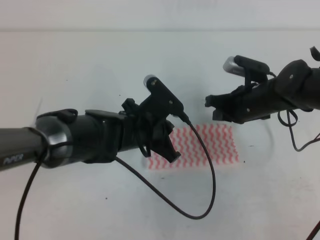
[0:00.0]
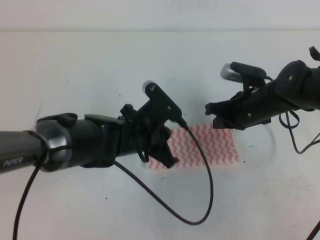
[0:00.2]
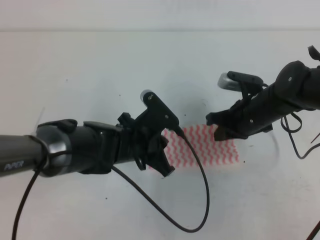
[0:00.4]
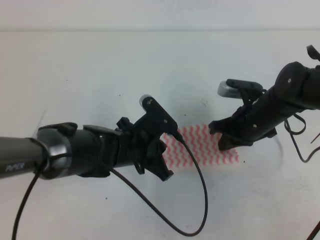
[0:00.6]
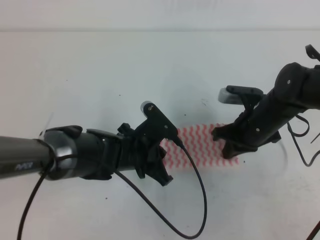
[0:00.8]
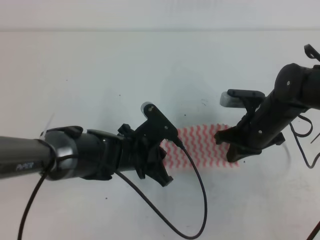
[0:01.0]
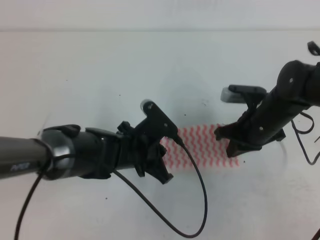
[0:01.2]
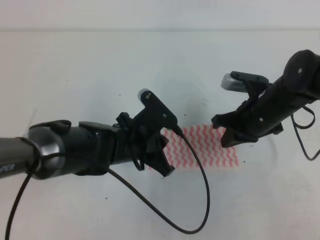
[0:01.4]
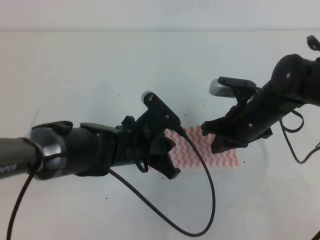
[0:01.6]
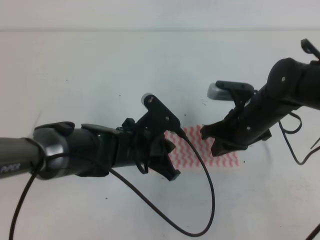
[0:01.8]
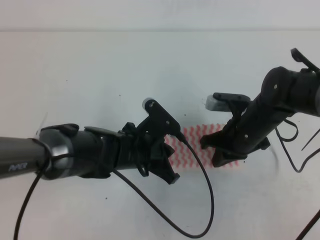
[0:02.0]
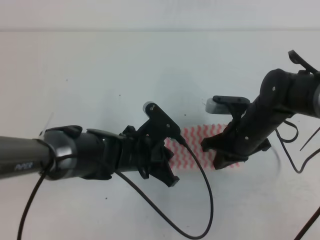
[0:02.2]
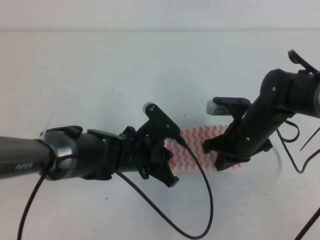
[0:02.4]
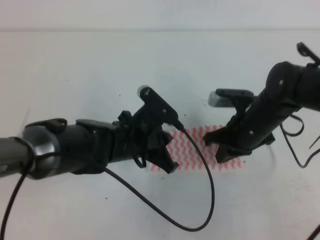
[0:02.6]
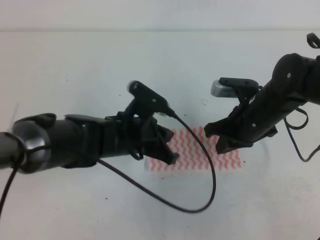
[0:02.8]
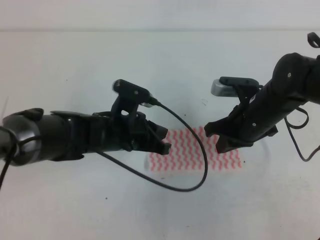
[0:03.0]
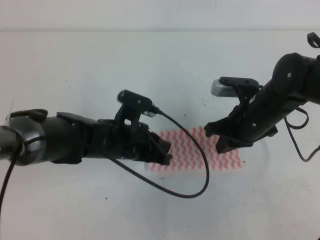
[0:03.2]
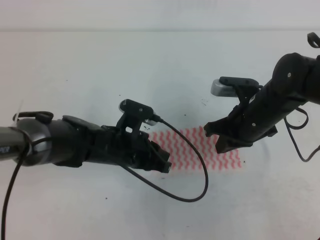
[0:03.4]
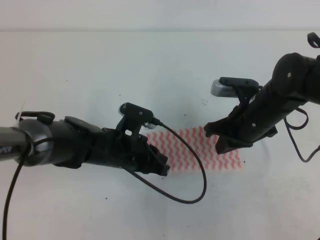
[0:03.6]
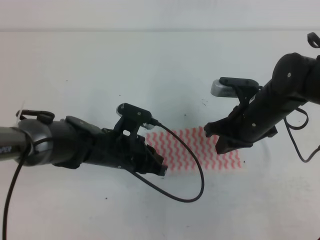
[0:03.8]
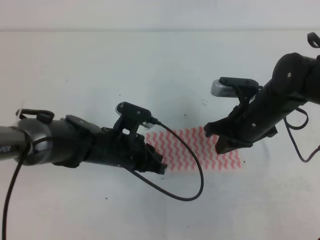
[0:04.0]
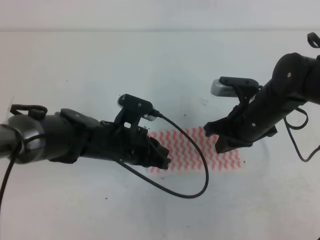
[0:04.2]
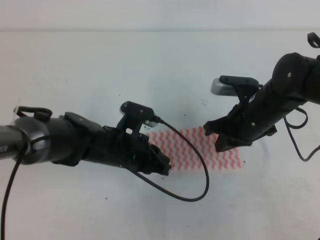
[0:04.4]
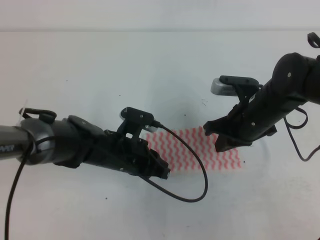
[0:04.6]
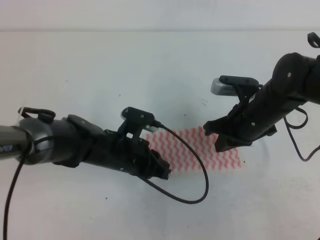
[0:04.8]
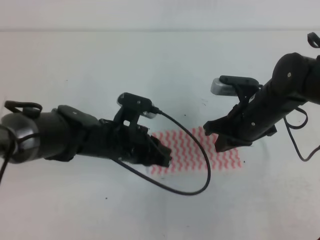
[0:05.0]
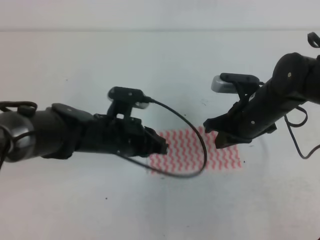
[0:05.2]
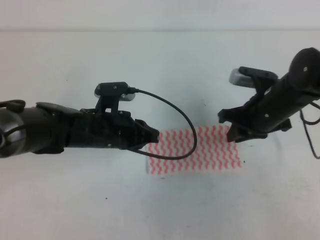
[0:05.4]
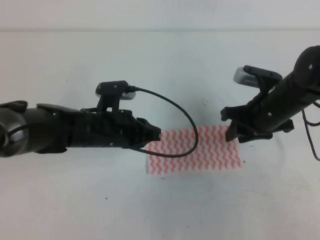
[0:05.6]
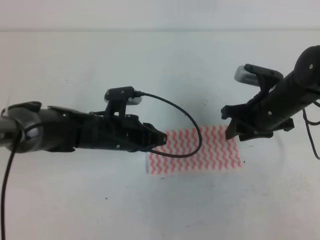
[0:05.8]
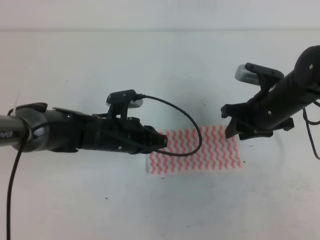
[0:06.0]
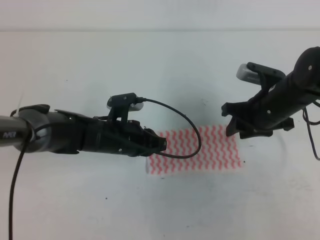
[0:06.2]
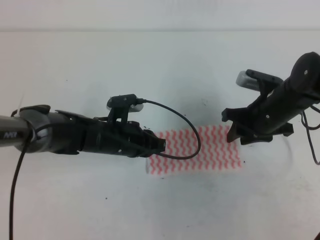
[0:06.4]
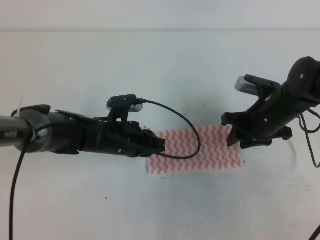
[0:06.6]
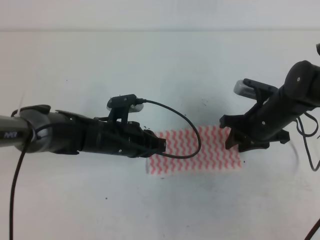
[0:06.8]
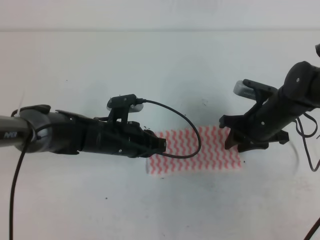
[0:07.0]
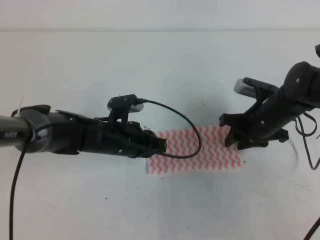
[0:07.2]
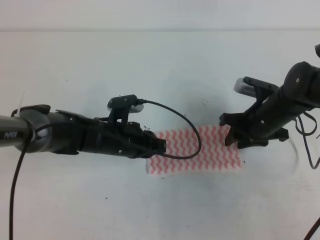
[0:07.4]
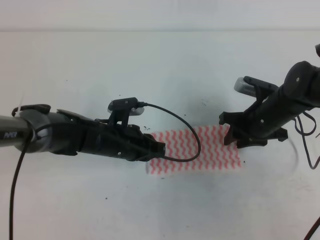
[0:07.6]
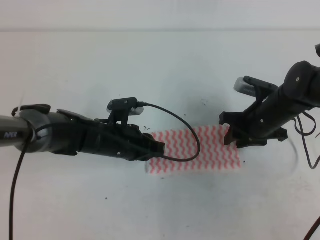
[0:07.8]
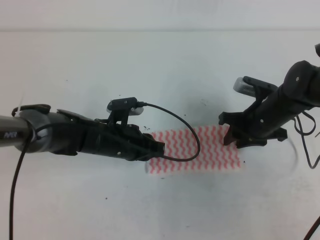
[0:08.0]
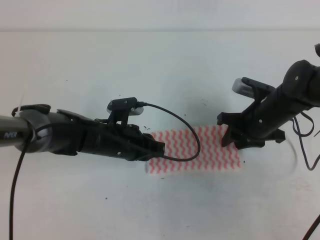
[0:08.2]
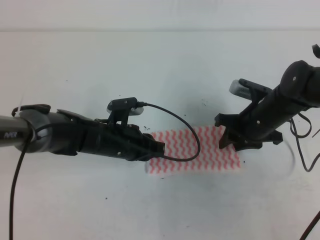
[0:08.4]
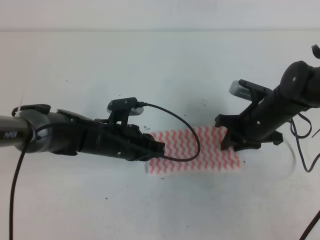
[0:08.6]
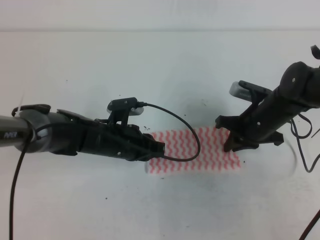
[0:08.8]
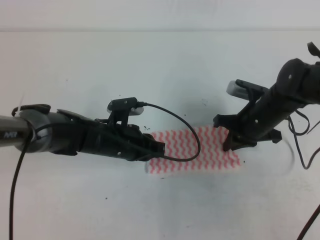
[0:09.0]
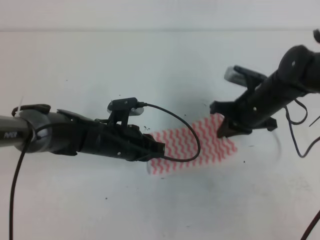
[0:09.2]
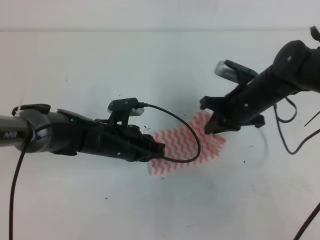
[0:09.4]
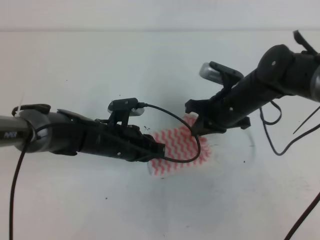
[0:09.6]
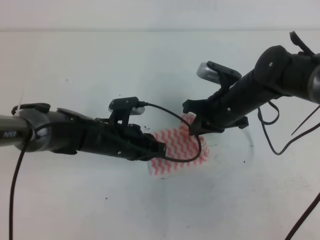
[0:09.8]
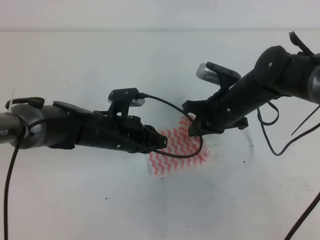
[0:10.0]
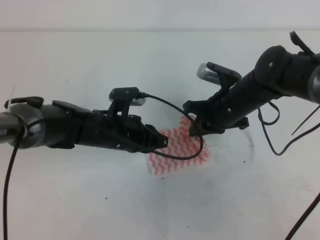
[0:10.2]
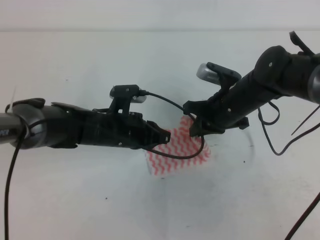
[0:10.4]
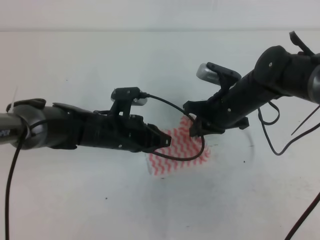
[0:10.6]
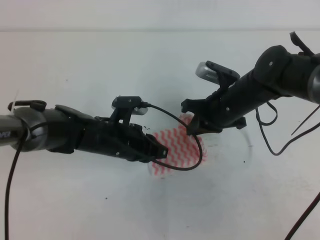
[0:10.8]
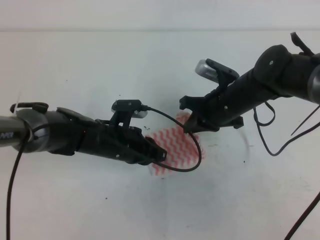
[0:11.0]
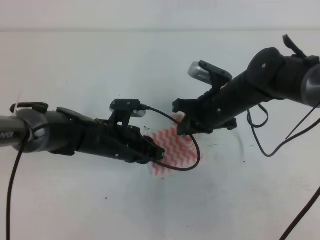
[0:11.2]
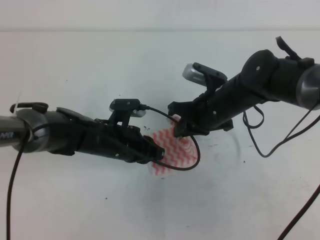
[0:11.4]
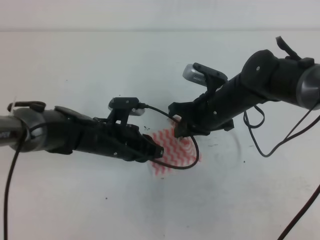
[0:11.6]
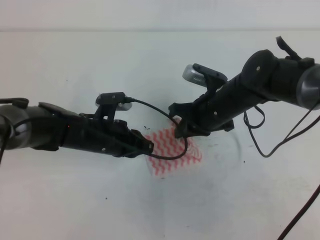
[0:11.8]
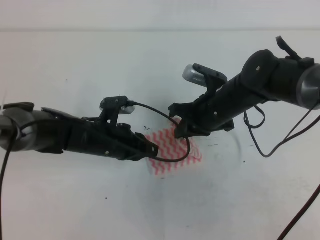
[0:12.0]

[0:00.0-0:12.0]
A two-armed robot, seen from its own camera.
Step, 0:00.8 to 0:05.6: Tidy up the towels.
0:01.6 to 0:03.0: The grippers stay close to where they were, moving slightly.
0:03.0 to 0:04.4: The grippers stay close to where they were, moving slightly.
0:04.4 to 0:06.0: The right gripper opens up.
0:06.0 to 0:07.6: The grippers make only small movements.
0:07.6 to 0:09.0: The right gripper closes up.
0:09.0 to 0:10.4: The right gripper goes about 5 cm to the left.
0:10.4 to 0:12.0: The grippers move only a little.

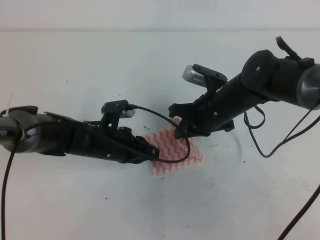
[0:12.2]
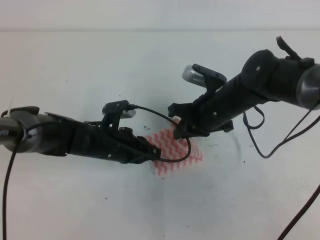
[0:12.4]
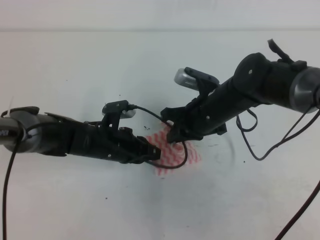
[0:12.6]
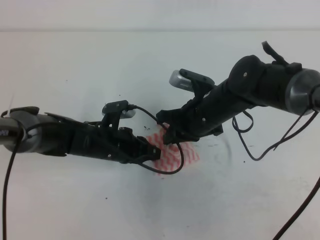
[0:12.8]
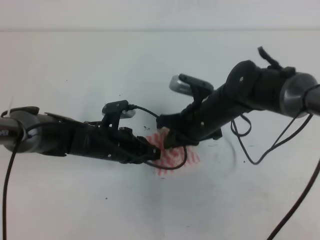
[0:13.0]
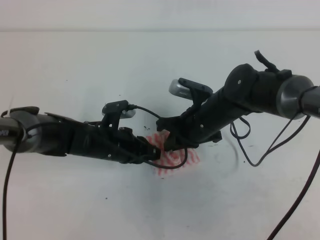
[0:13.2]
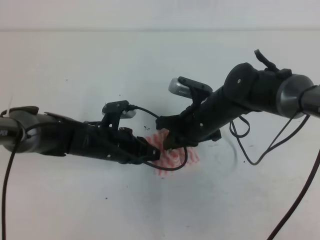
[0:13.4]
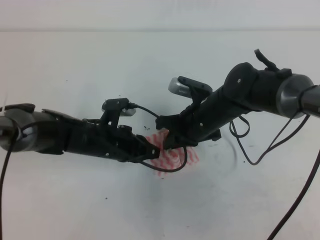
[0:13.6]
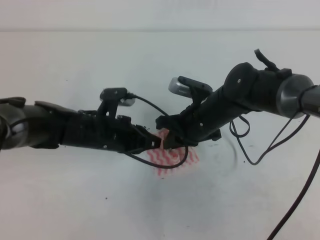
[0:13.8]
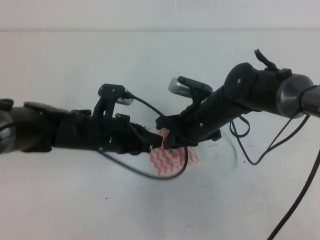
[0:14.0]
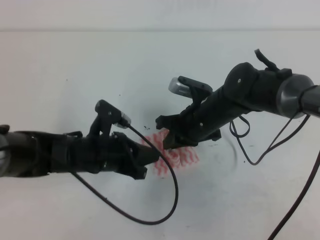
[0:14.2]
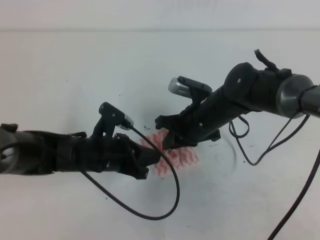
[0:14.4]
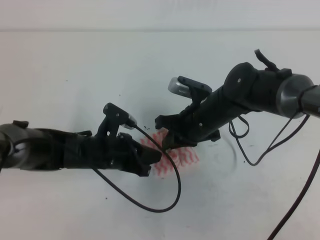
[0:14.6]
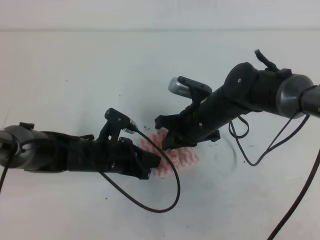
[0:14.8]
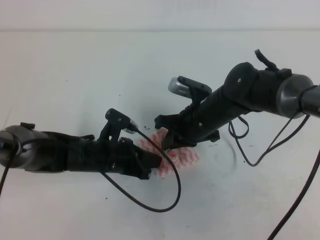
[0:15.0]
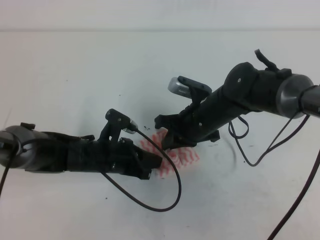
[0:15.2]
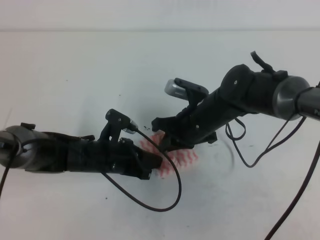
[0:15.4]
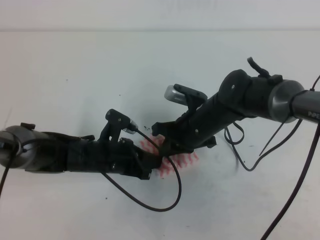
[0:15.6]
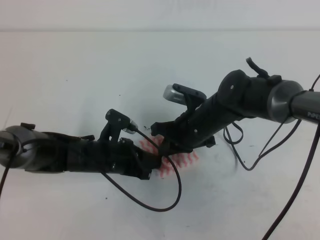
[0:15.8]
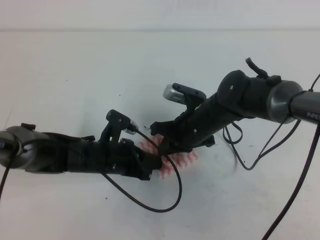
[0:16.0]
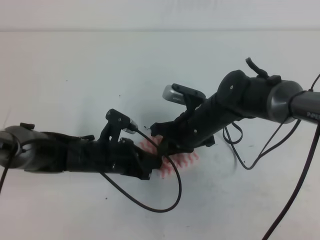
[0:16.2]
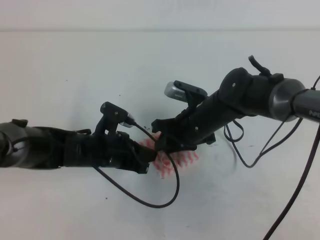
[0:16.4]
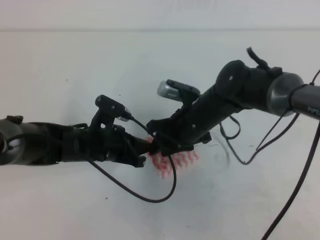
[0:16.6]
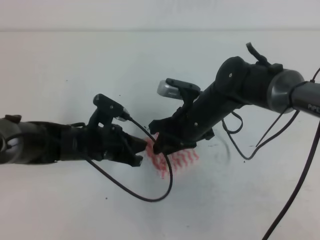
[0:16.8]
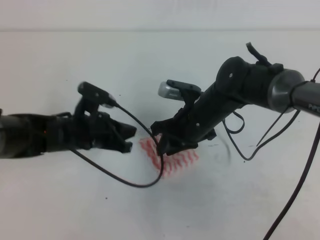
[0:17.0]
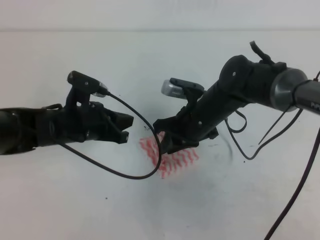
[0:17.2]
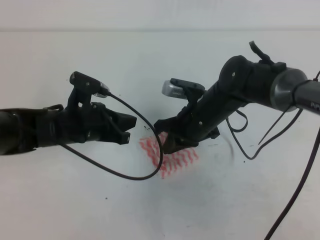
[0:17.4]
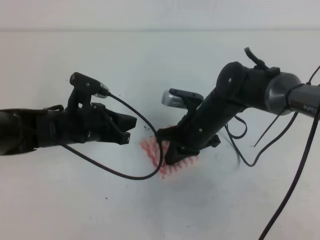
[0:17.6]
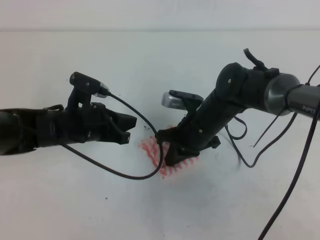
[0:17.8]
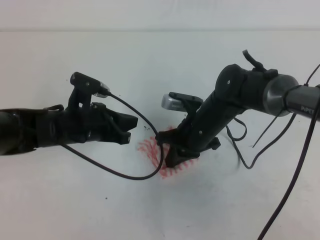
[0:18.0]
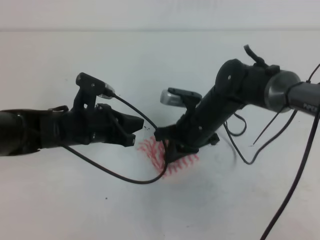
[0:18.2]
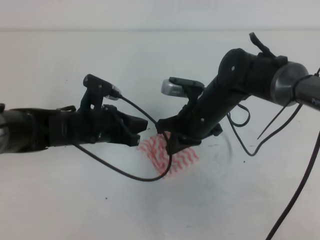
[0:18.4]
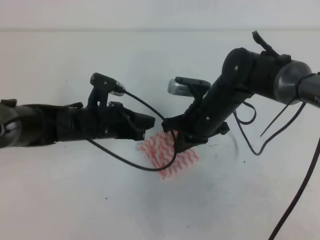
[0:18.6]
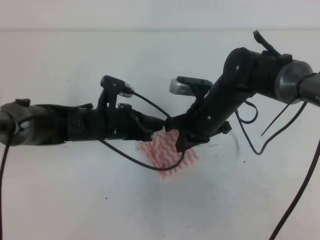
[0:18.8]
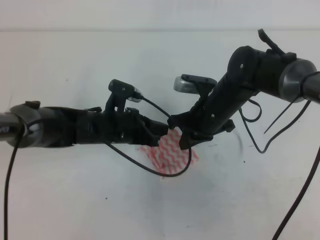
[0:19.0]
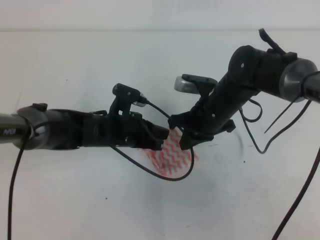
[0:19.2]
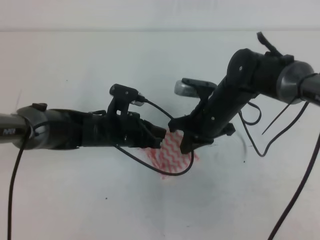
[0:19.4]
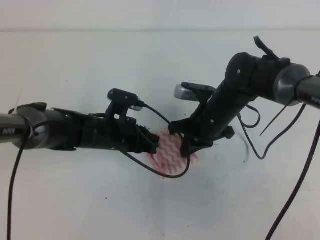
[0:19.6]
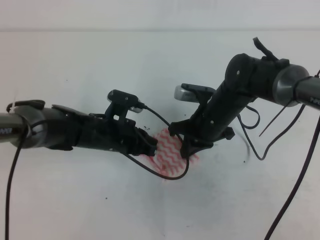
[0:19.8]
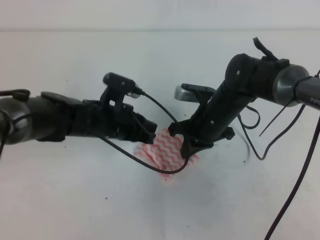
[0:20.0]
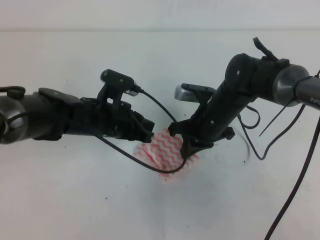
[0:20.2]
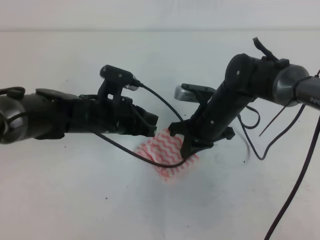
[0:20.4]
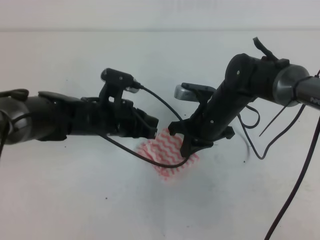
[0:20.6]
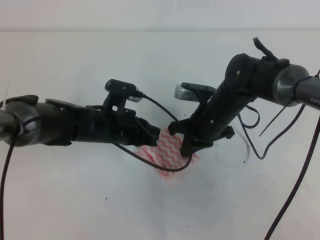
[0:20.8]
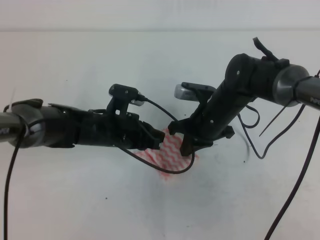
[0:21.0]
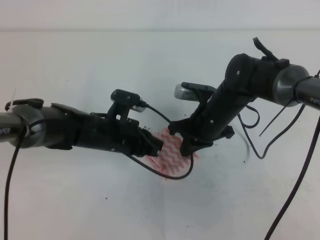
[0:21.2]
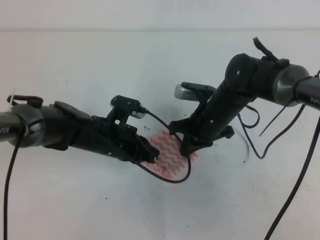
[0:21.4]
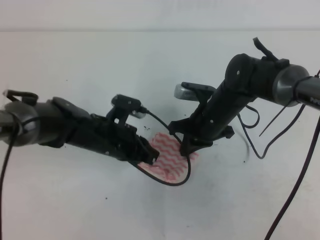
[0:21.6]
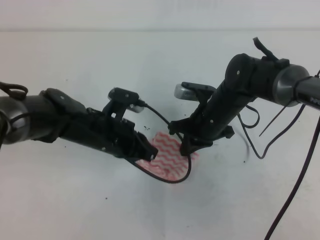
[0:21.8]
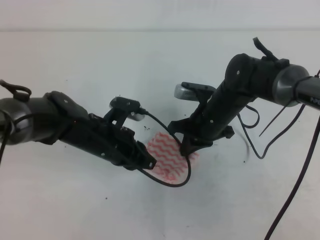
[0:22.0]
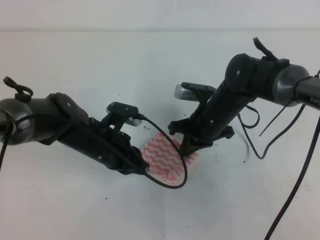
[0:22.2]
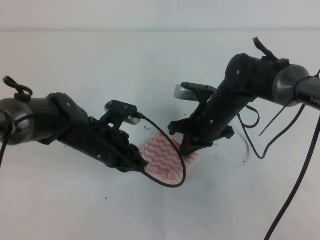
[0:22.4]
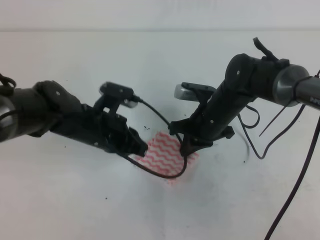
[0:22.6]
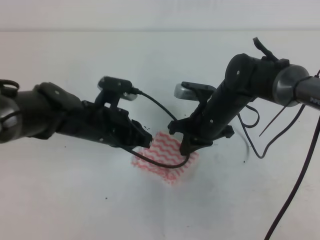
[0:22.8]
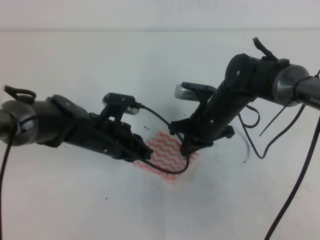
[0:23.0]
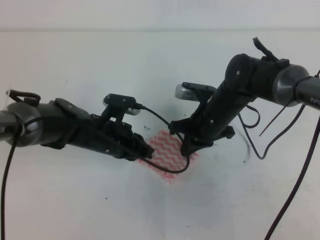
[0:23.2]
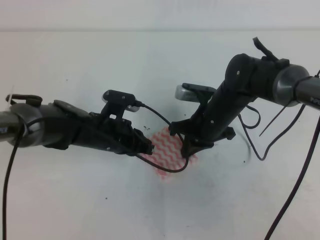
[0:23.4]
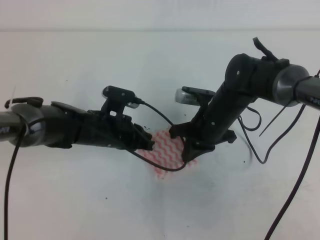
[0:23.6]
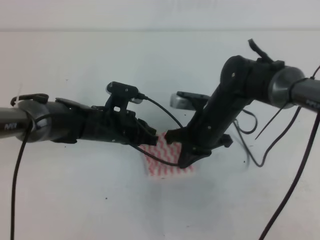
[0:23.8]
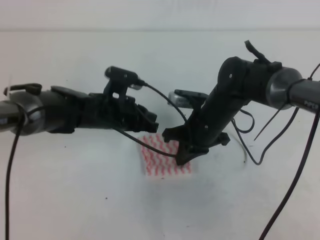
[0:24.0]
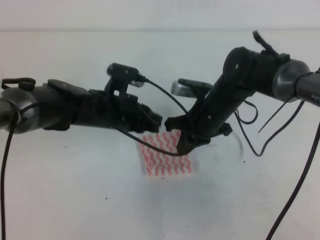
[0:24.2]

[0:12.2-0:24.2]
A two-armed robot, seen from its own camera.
0:12.2 to 0:13.8: The grippers move only a little.
0:13.8 to 0:15.2: The grippers stay close to where they were, moving slightly.
0:15.2 to 0:16.6: The right gripper opens up.
0:16.6 to 0:18.2: The left gripper ends up about 5 cm from where it was. Meanwhile the right gripper closes its fingers.
0:18.2 to 0:19.8: The left gripper moves approximately 5 cm.
0:19.8 to 0:24.2: The grippers stay close to where they were, moving slightly.
